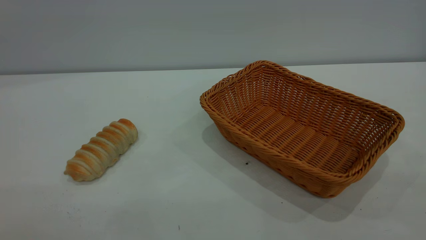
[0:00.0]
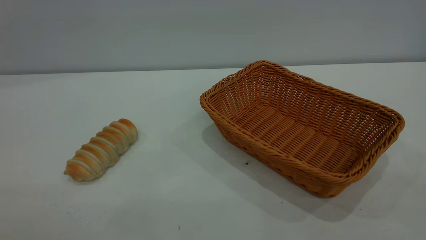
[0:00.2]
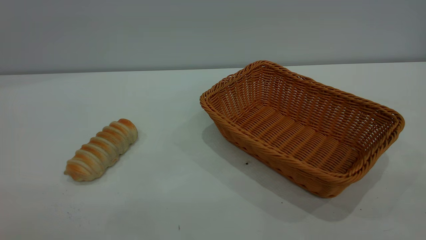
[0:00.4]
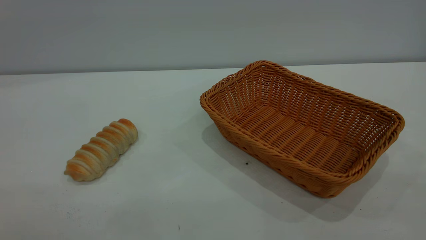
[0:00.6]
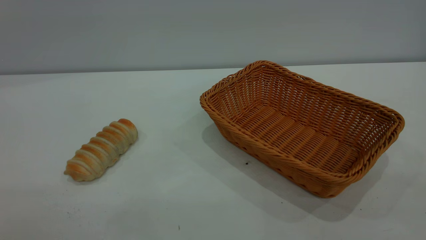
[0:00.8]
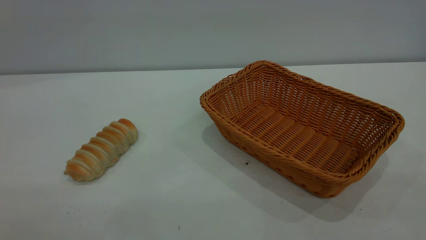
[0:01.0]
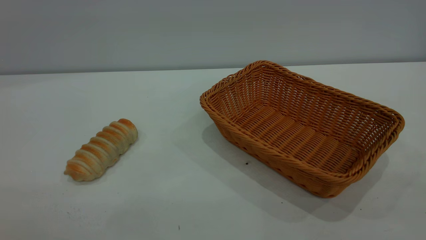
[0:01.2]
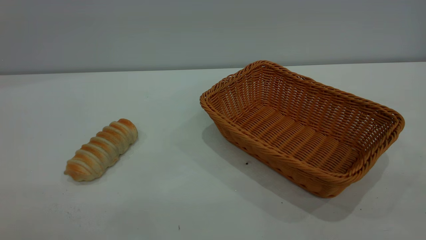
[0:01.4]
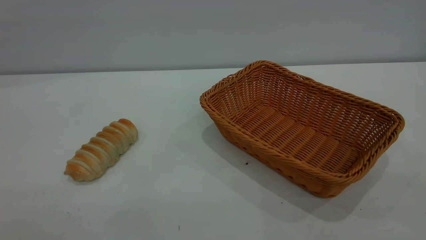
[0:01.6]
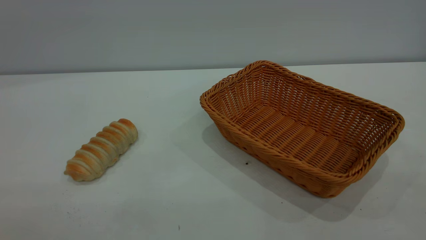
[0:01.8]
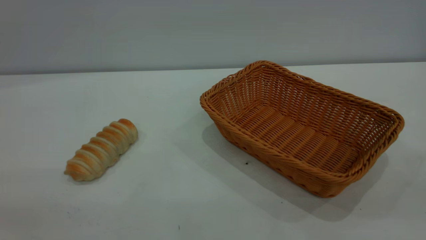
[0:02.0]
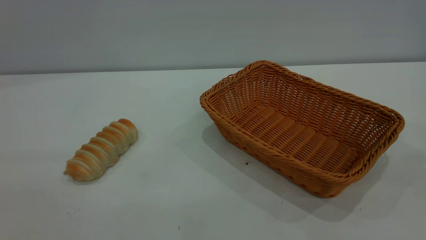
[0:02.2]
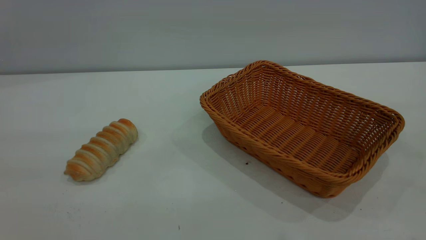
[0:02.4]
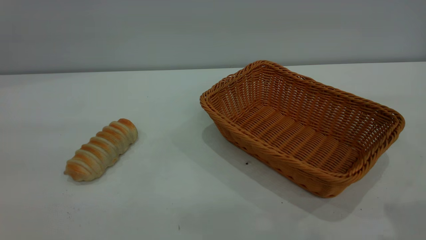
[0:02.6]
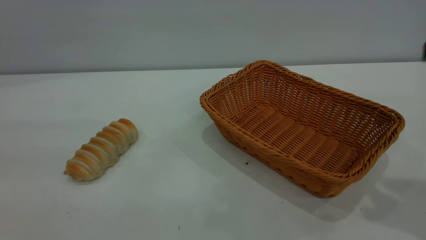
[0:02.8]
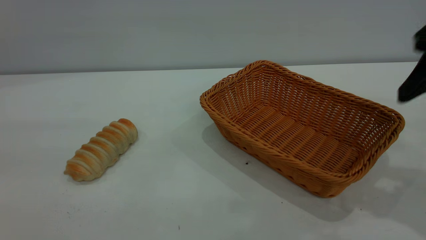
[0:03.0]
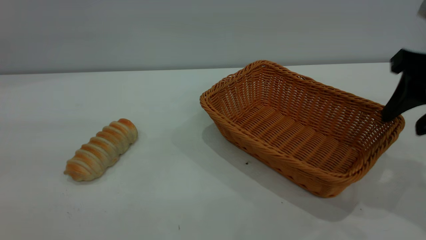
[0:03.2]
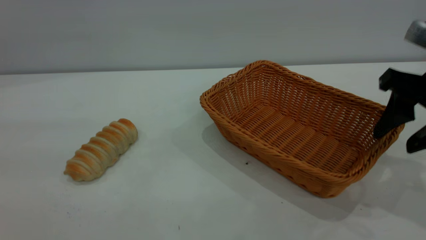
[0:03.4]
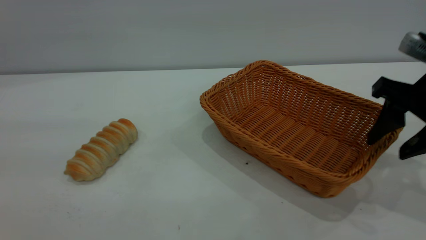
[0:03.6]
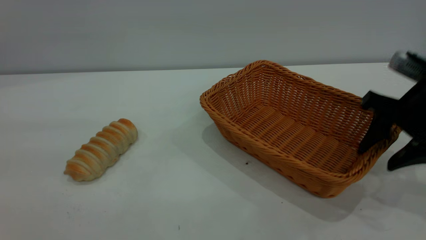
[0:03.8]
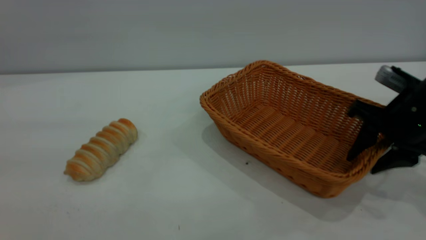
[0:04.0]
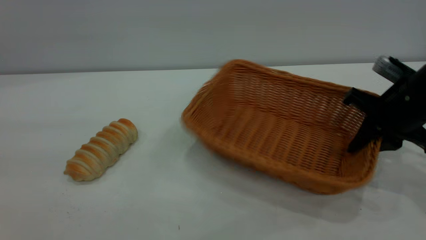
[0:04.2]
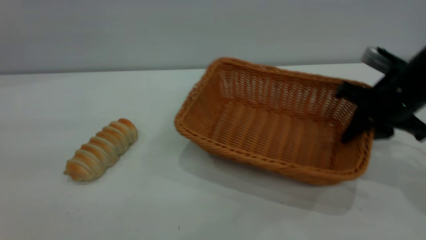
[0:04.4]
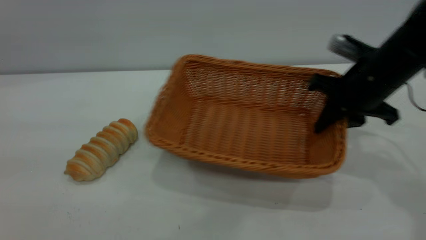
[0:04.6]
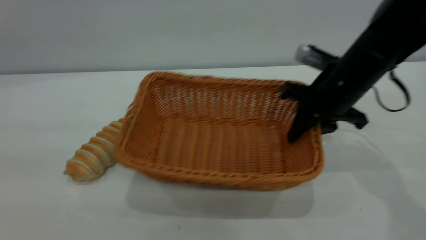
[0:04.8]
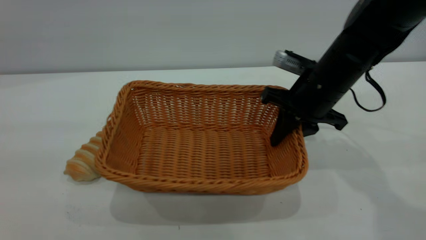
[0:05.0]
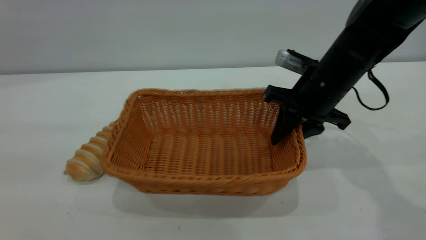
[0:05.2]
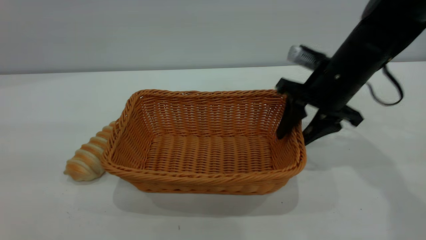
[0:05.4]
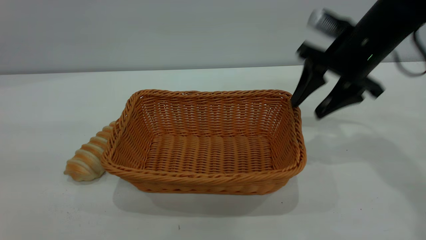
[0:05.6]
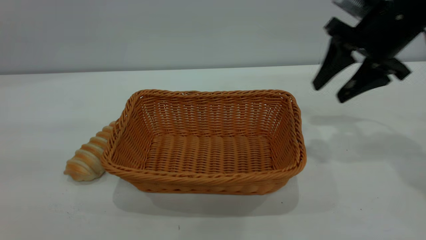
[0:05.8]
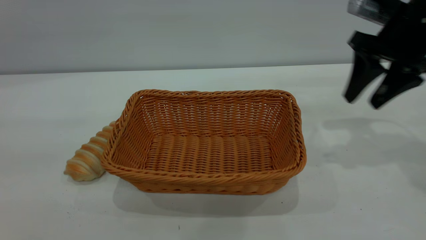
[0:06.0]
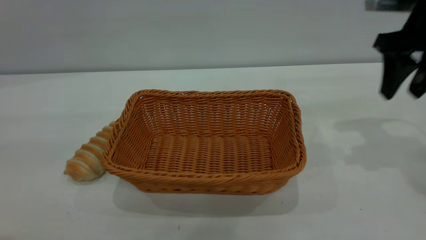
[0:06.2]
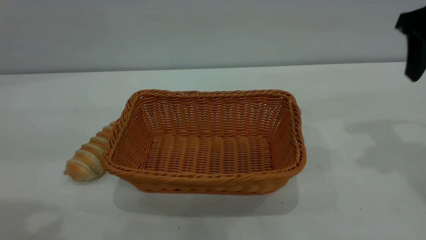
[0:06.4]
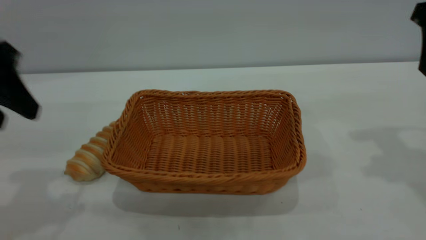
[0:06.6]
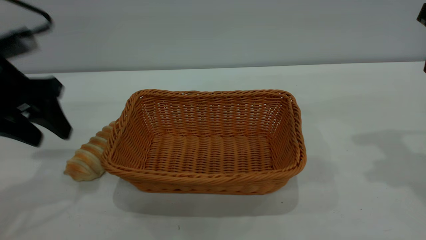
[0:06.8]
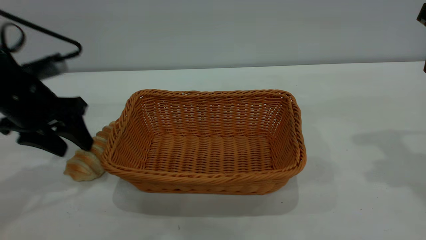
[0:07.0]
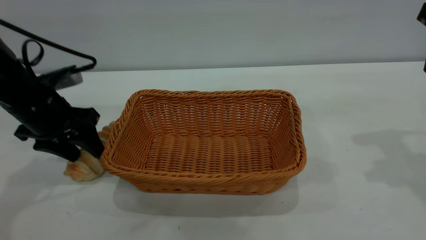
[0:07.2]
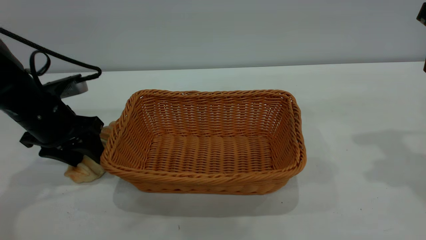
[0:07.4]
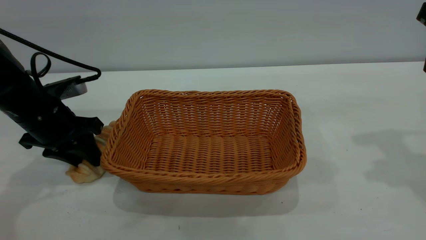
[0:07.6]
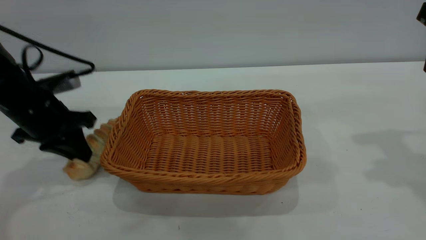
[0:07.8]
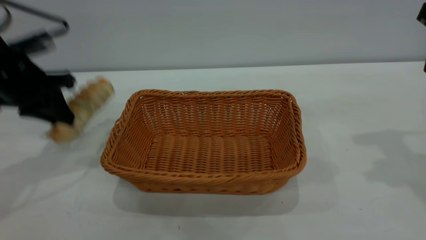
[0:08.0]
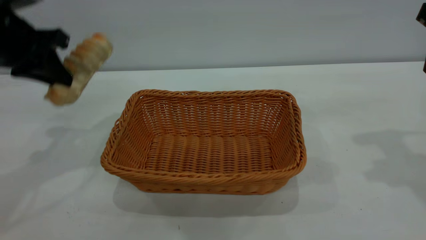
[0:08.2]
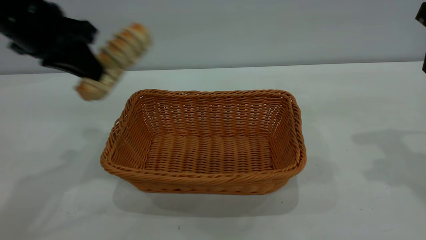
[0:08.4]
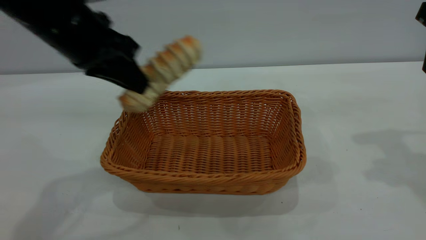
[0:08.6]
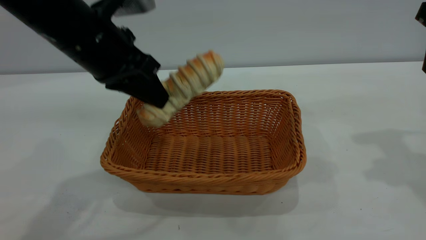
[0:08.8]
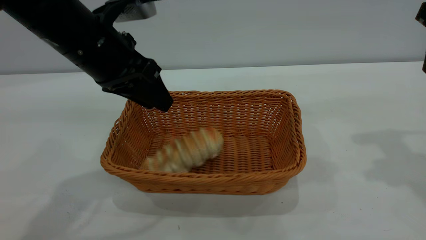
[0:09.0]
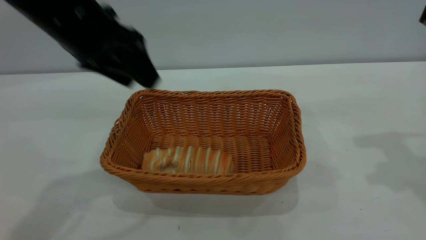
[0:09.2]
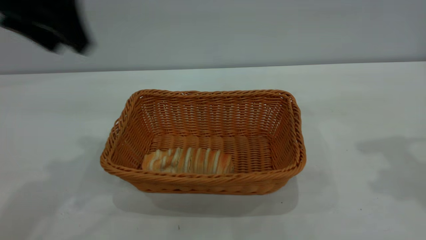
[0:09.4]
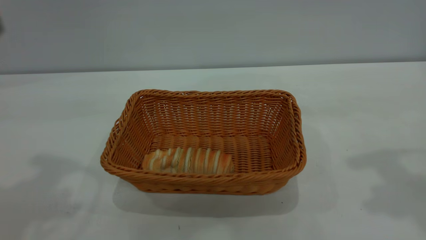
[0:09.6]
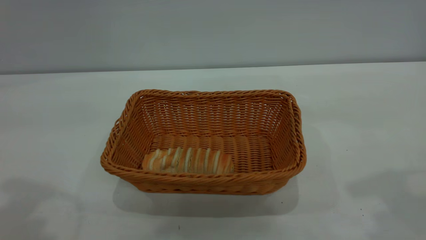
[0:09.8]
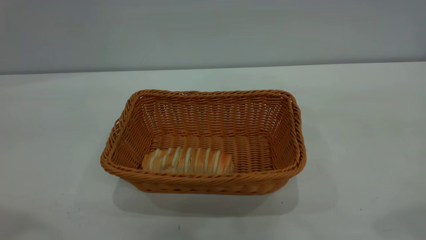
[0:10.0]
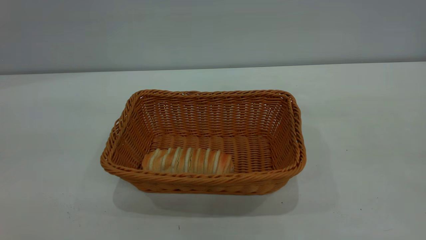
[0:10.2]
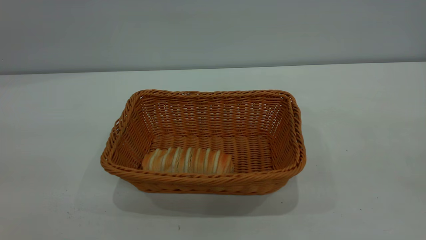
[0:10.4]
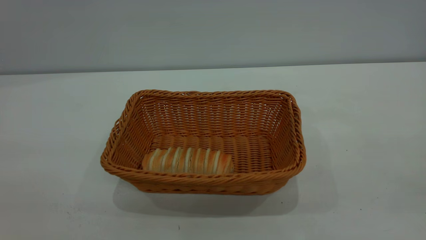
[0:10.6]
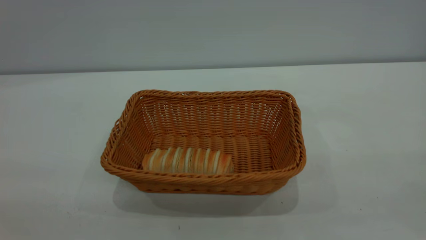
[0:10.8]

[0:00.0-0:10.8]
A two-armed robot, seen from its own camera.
Task of the whole recording: One hand grasps the yellow basket and places it in the middle of the table, while the other hand picks up the long bread and puts it into the yellow basket.
Step, 0:00.0 to 0:05.6: Move the basket to the center of view.
Step, 0:08.0 to 0:09.2: place the bread into the basket.
0:00.0 to 0:01.6: Neither gripper changes place.
0:01.6 to 0:03.0: The right gripper is displaced forward by about 25 cm.
0:03.0 to 0:04.6: The right gripper shifts roughly 15 cm forward, downward and to the left, and closes up.
0:04.6 to 0:06.2: The right gripper heads upward and to the right, covering some 10 cm, and opens, while the left gripper changes place by roughly 5 cm.
0:06.2 to 0:07.8: The left gripper moves downward and forward, some 30 cm, and closes its fingers. Meanwhile the right gripper changes place by about 5 cm.
0:07.8 to 0:09.2: The left gripper goes roughly 20 cm upward and to the right, and opens its fingers.
0:09.2 to 0:10.8: The grippers both shift backward by approximately 30 cm.
